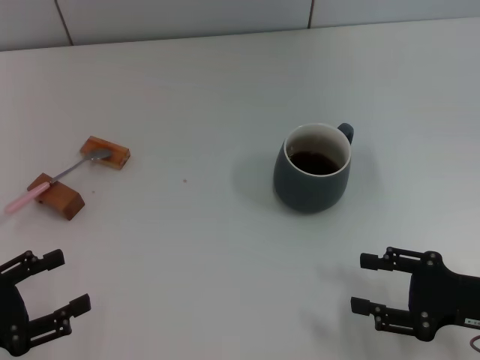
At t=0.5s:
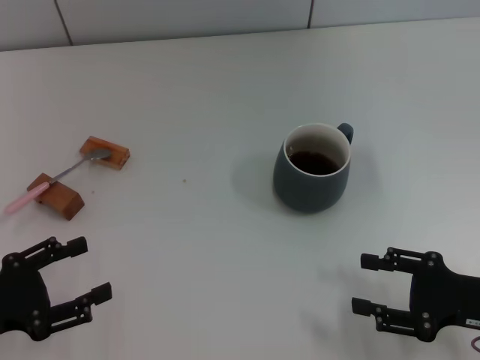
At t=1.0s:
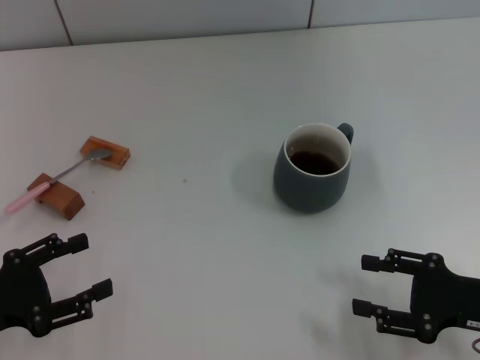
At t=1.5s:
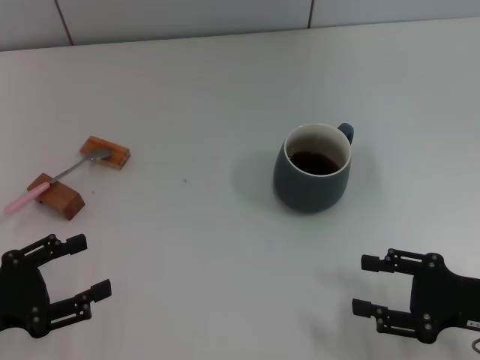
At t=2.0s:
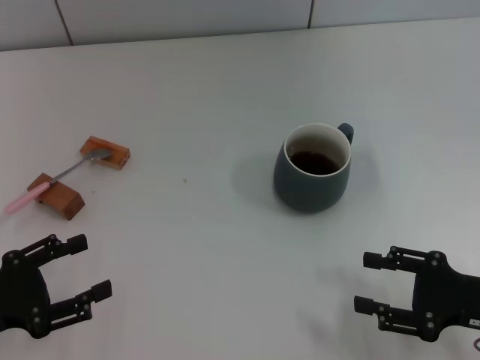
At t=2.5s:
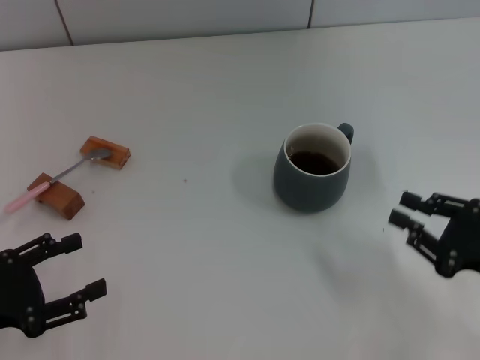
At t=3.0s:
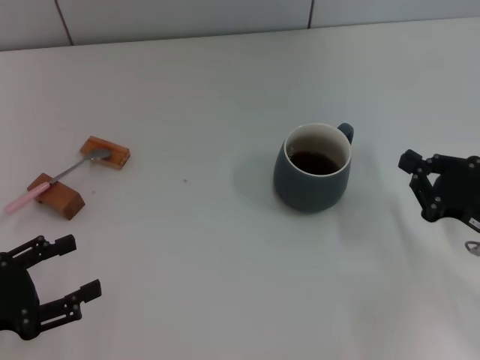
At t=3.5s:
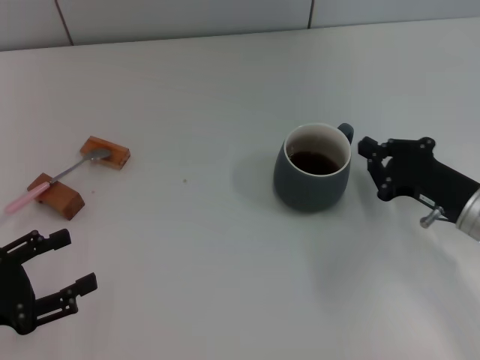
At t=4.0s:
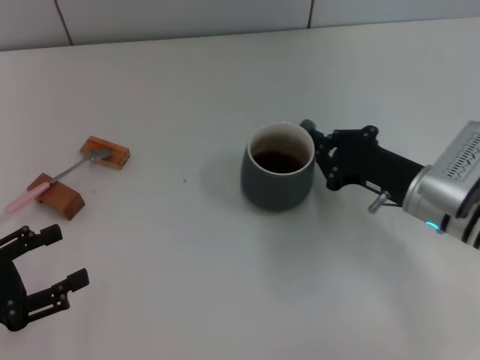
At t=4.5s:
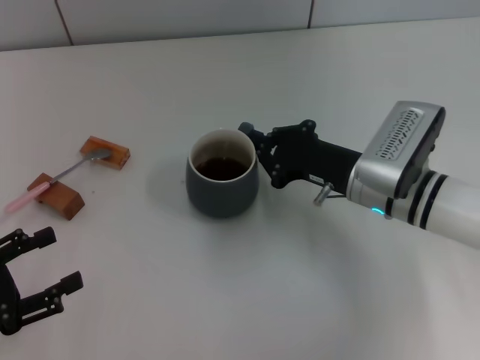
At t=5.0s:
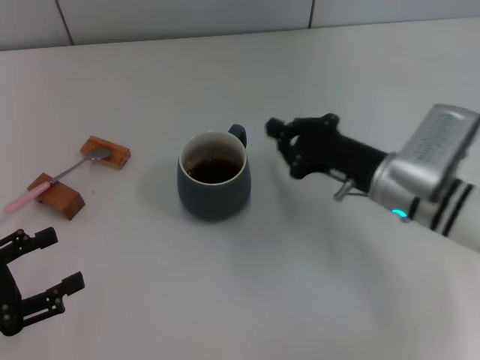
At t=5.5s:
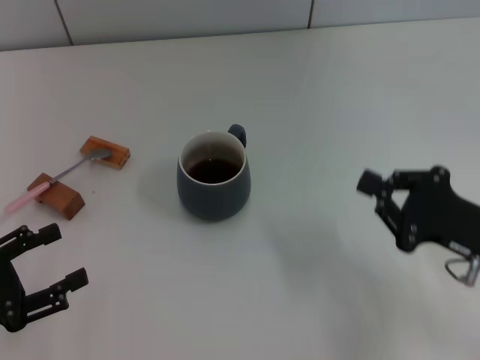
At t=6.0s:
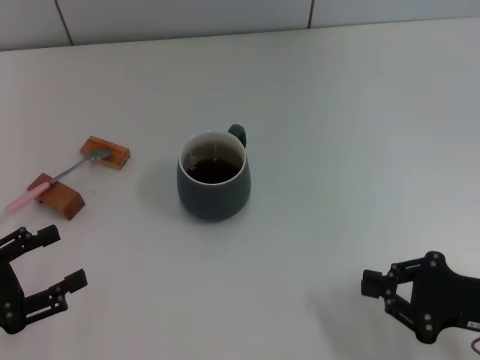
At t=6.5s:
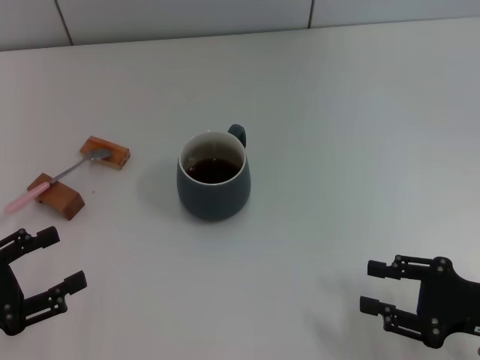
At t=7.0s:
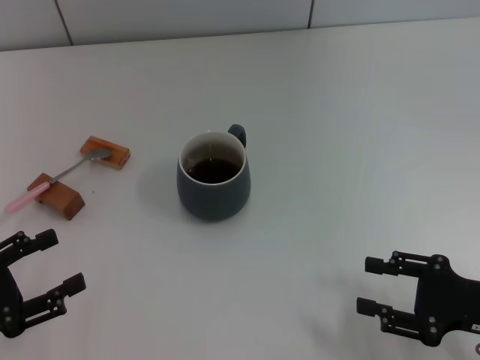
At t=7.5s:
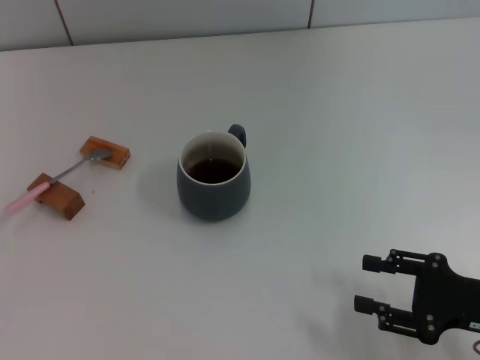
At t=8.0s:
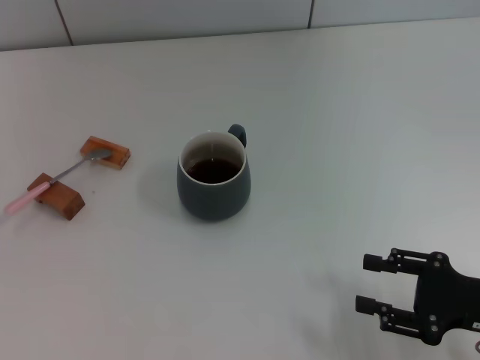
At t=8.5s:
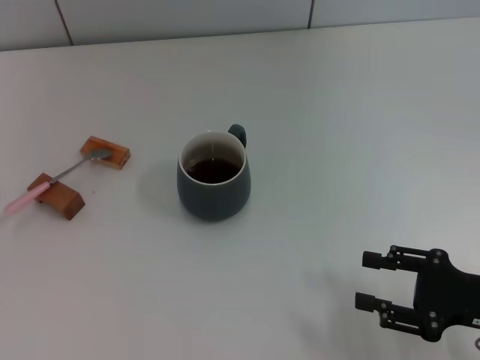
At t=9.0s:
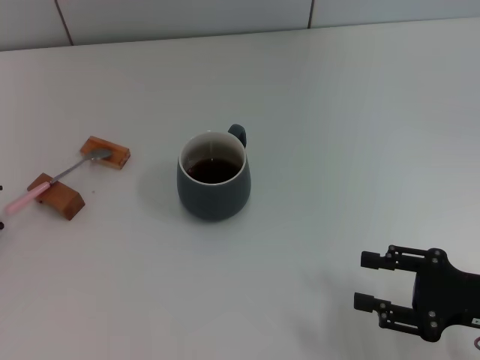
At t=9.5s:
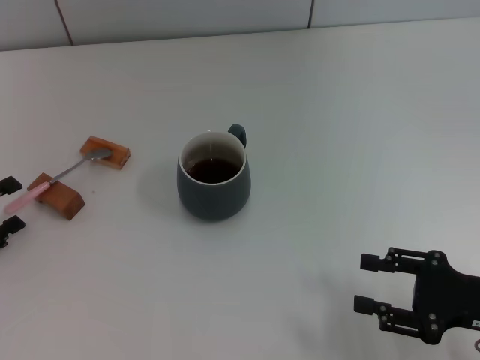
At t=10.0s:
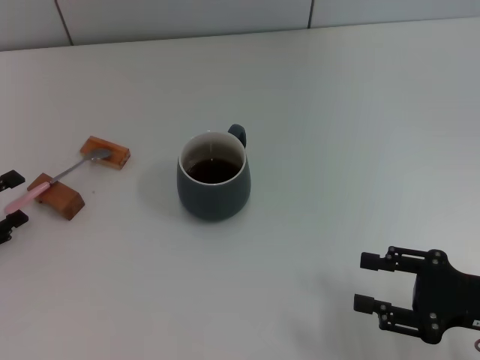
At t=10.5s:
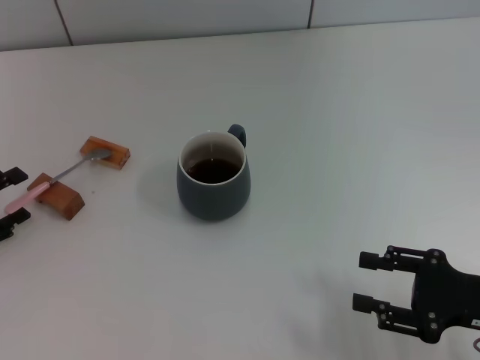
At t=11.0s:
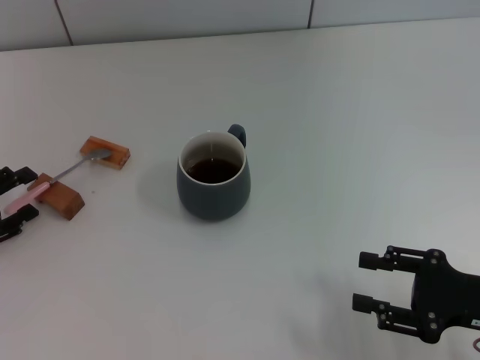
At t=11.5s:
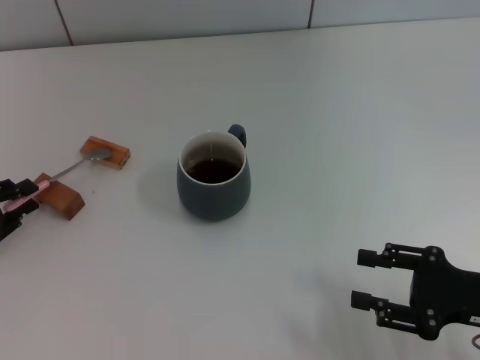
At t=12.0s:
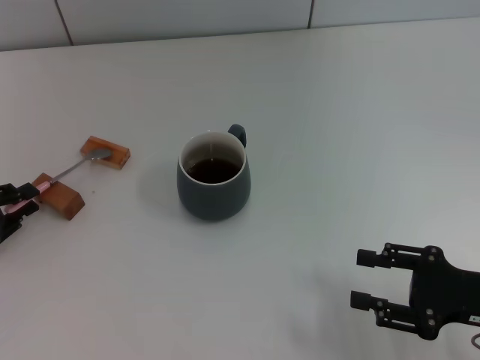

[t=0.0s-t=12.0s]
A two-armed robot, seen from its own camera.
Task of the whole recording: Move the grey cup to the center, lift the pink spoon, stir it three times in the cup, and put the spoon into the cup.
Step, t=0.0s to t=5.0s: Move the cup with coffee to the center of view with the right gripper.
t=0.0s to t=2.0s: The grippers make only small movements.
t=2.0s to t=4.0s: The right gripper heads forward and to the left, covering some 15 cm, and closes its fingers.
t=4.0s to t=6.0s: The right gripper goes roughly 15 cm backward and to the right.
t=6.0s to t=8.0s: The left gripper shifts roughly 10 cm to the left and forward, while the right gripper opens up.
t=8.0s to t=10.0s: The left gripper changes place by some 5 cm.
t=10.0s to t=12.0s: The left gripper closes.

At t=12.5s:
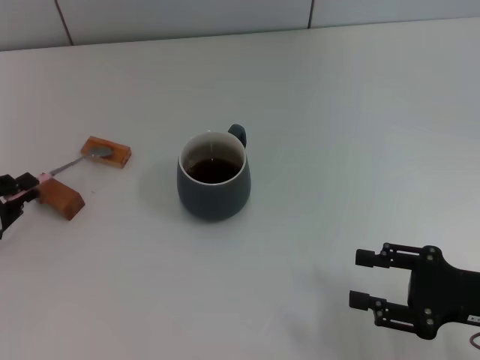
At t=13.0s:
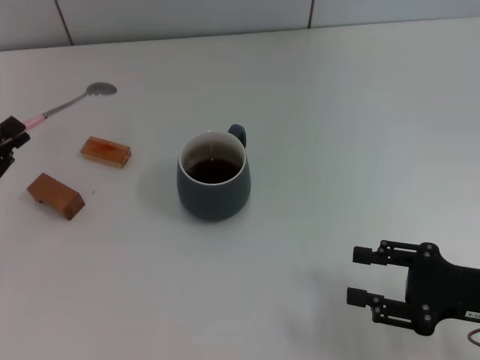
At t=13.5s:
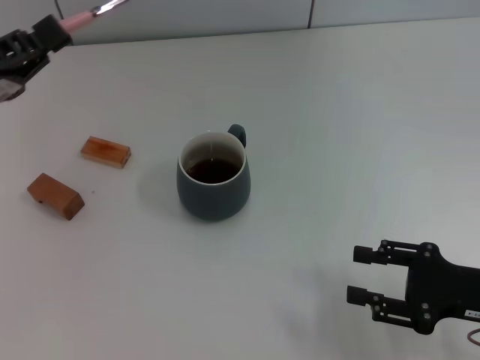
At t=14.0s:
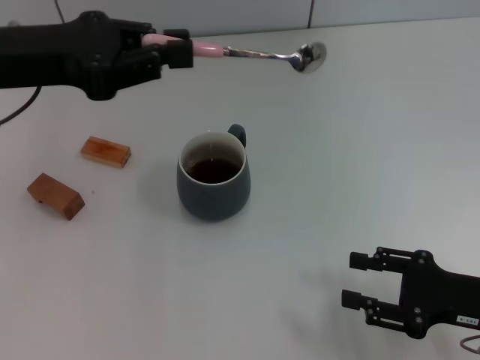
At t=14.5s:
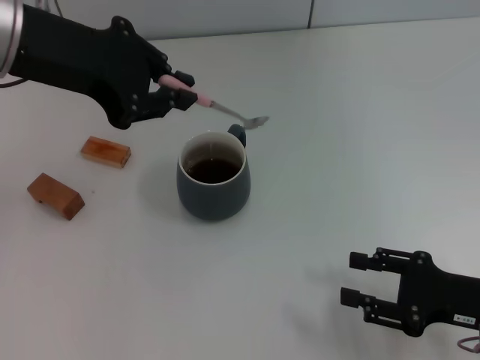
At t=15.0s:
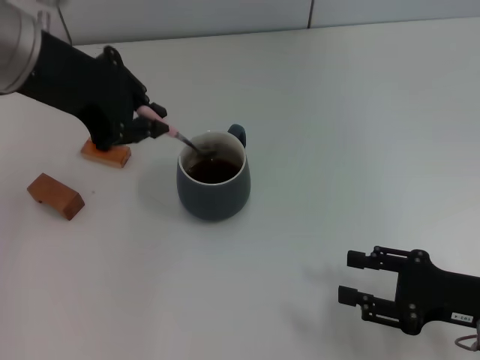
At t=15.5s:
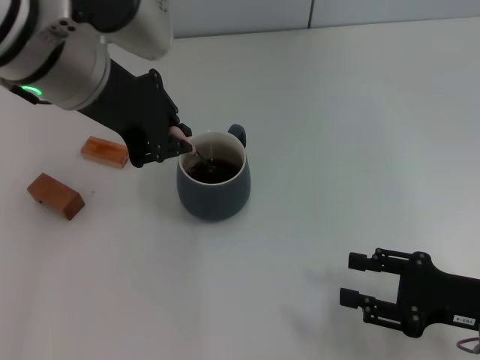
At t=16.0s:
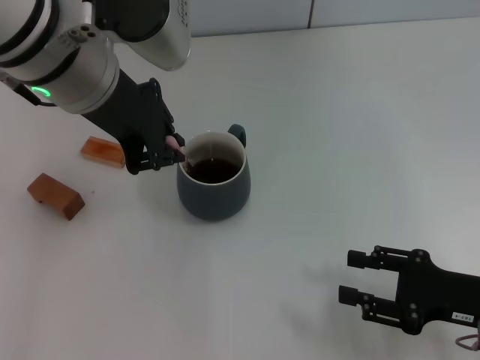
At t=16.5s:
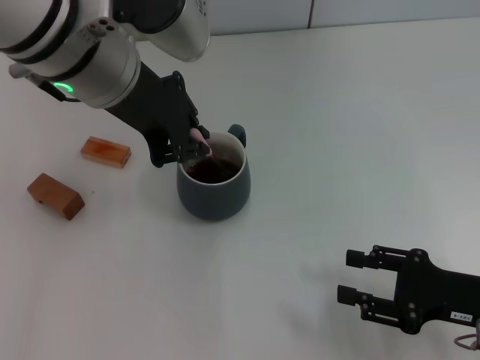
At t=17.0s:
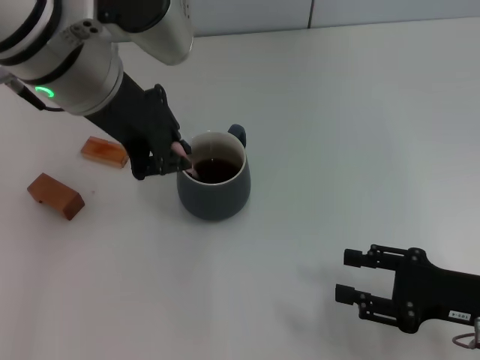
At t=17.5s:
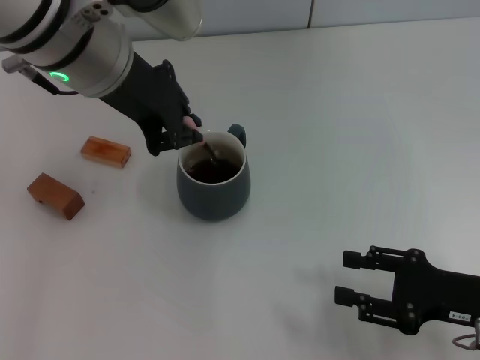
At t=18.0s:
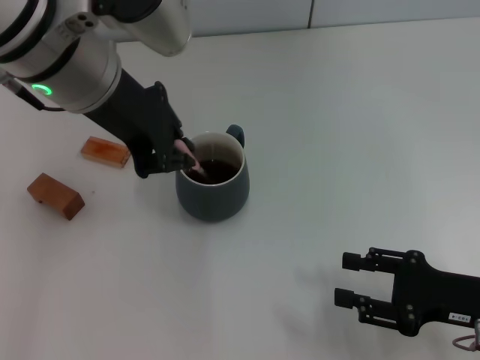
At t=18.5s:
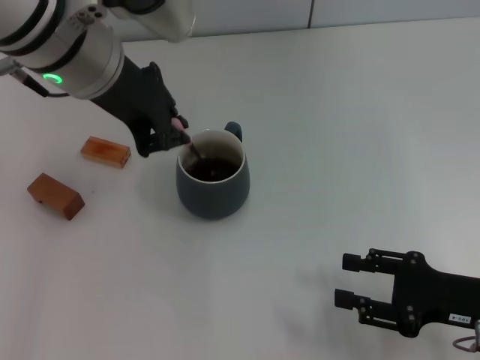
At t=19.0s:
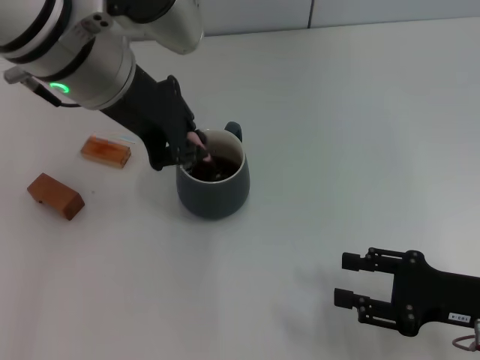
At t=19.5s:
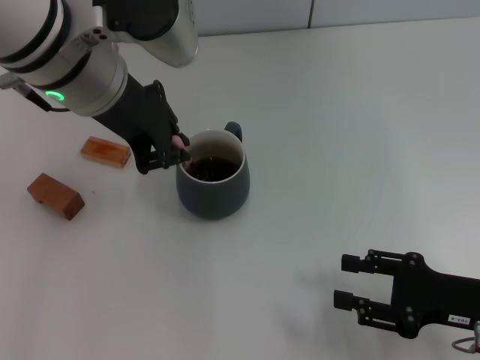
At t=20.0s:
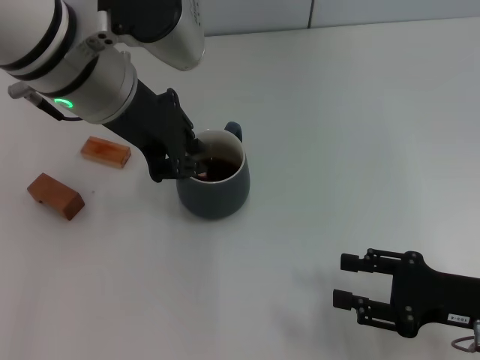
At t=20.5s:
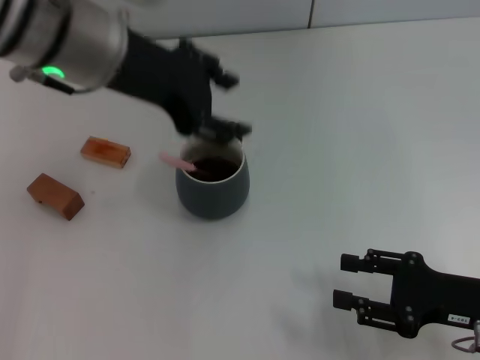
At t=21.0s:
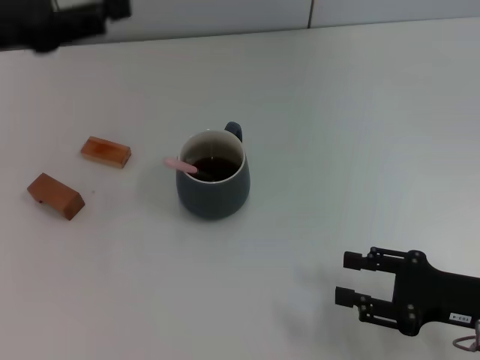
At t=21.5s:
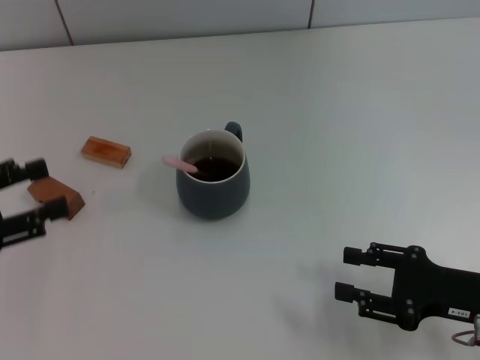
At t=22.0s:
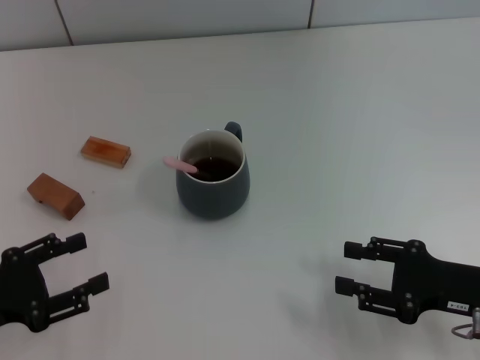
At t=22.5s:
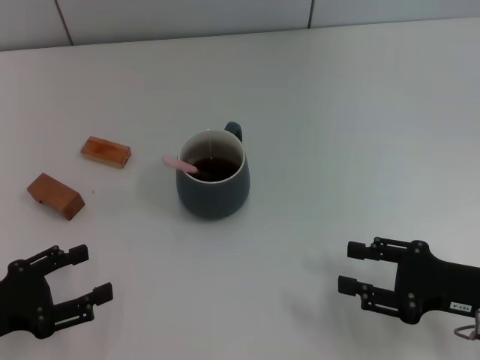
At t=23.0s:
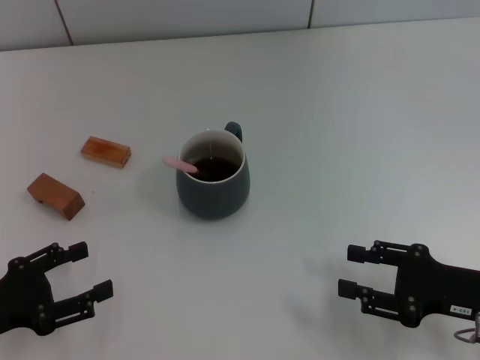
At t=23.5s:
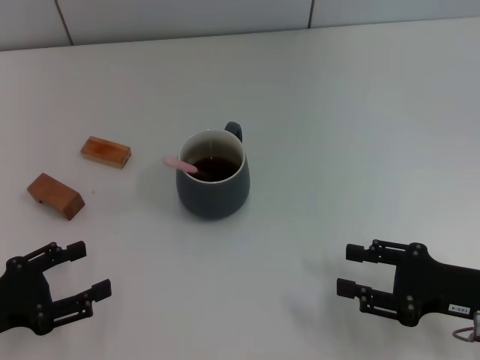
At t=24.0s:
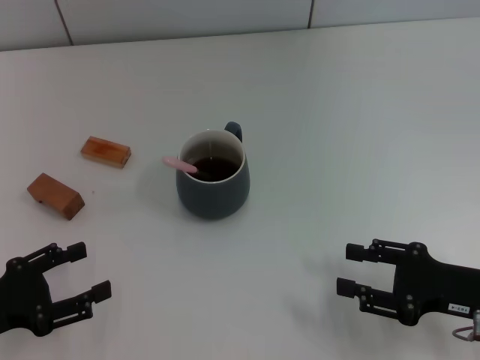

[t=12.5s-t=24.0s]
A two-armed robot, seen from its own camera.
Task of the whole recording: Move the grey cup to the center, lift the pink spoon, stir it three times in the cup, and put the spoon into the cup.
Step, t=13.0s to t=20.0s: Stir the coffee in the cup with the left gripper.
t=12.5s to t=14.5s: The left gripper travels upward and to the right by approximately 30 cm.
t=14.5s to t=16.5s: The left gripper travels to the right by approximately 10 cm.
t=16.5s to t=20.0s: The grippers make only small movements.
t=20.0s to t=22.0s: The left gripper heads to the left, downward and backward, covering roughly 30 cm, and opens its fingers.
t=22.0s to t=24.0s: The grippers move only a little.
